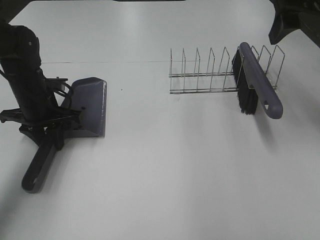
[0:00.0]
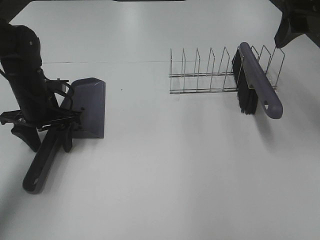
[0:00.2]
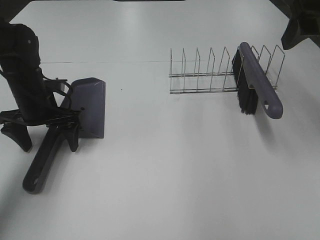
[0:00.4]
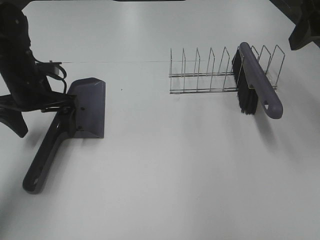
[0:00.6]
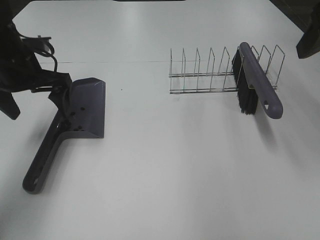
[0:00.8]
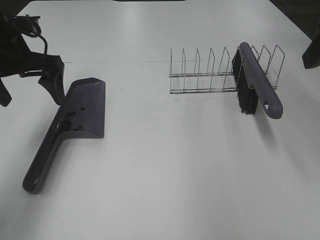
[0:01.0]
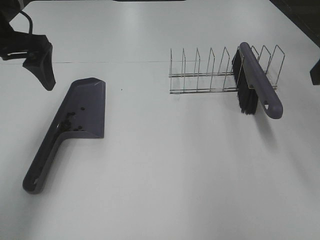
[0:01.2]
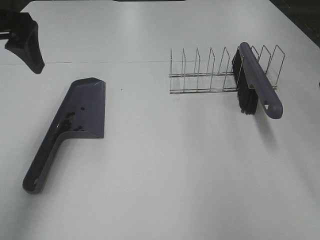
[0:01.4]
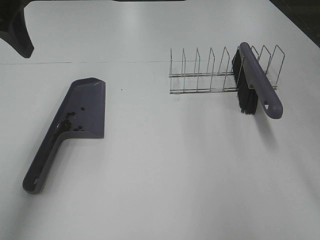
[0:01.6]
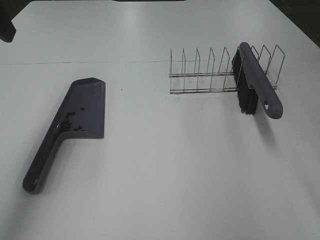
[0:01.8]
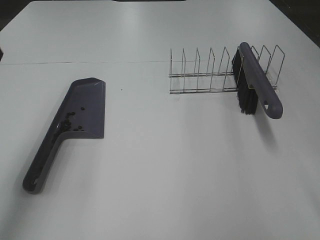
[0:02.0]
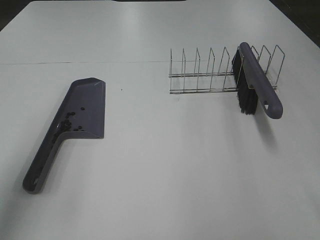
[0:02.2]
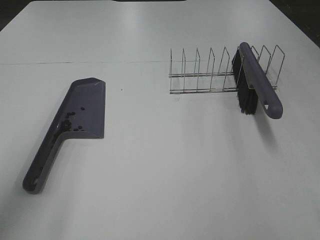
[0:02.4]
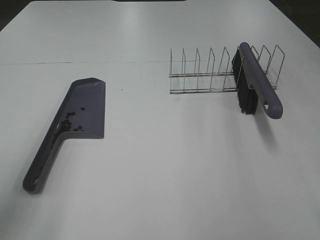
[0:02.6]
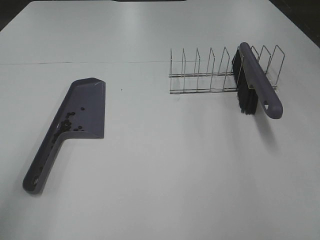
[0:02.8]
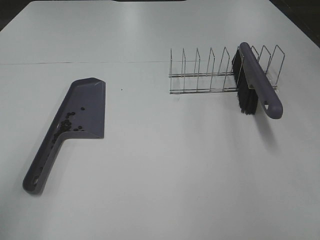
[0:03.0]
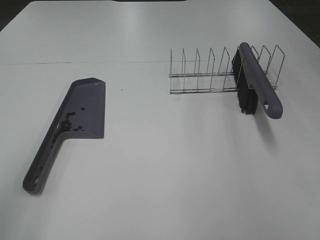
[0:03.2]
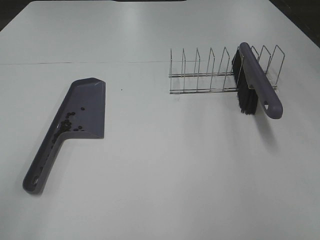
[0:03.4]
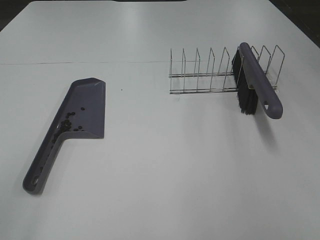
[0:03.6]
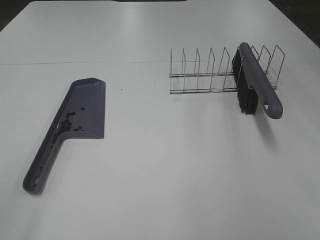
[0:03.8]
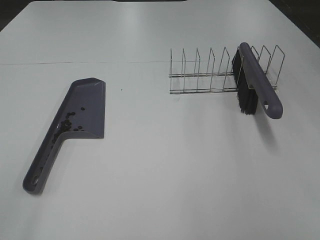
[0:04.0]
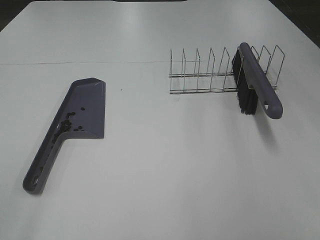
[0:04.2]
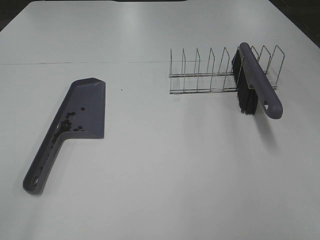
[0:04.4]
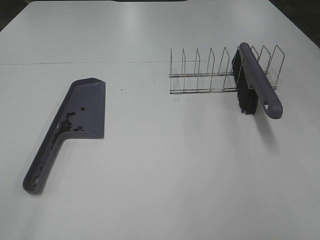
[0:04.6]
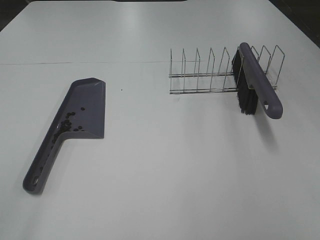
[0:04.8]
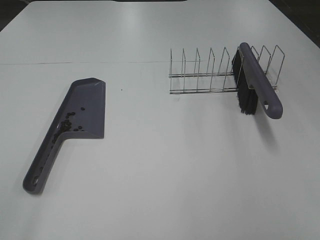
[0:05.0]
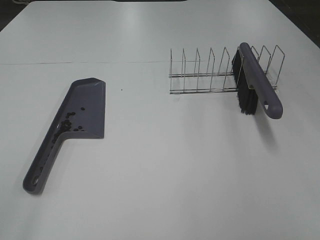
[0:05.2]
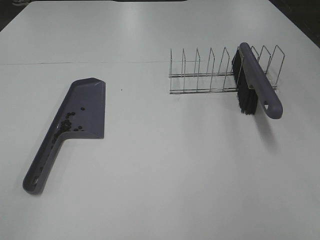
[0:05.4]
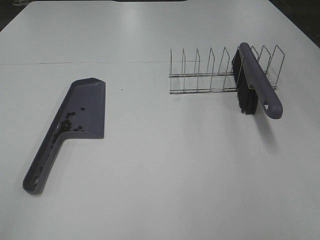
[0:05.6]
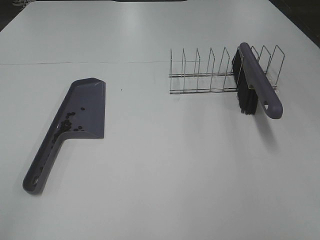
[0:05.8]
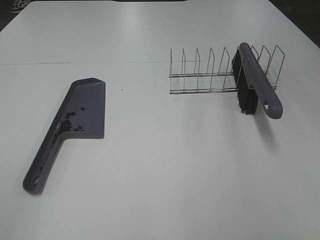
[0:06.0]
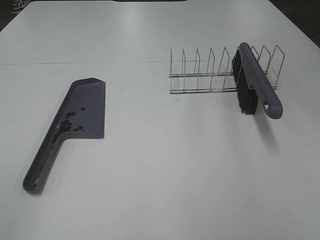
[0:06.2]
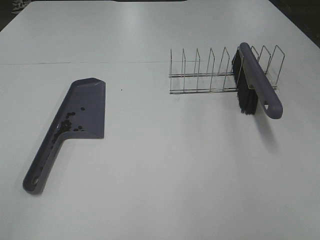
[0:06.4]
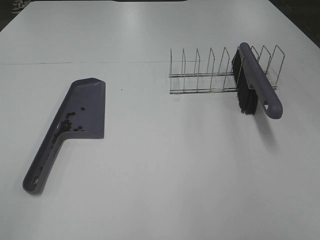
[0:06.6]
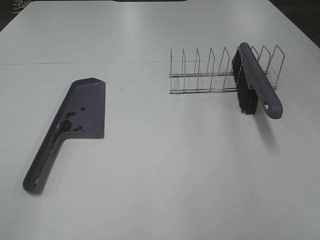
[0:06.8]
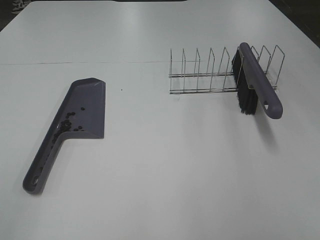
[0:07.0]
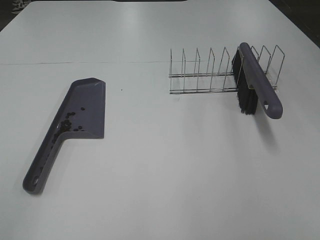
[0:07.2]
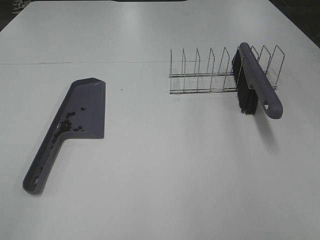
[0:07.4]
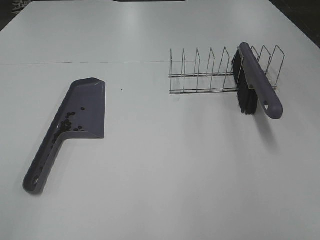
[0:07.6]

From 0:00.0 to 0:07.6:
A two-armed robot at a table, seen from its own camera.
Task of the whole recording: Sweep Coffee Bean.
From 0:00.0 to 0:01.6: The right gripper heads backward, covering approximately 15 cm; the left gripper shifts about 25 cm upward, and opens up.
From 0:01.6 to 0:03.0: The left gripper moves backward and downward, about 20 cm.

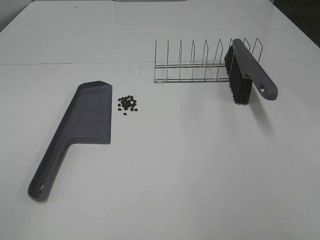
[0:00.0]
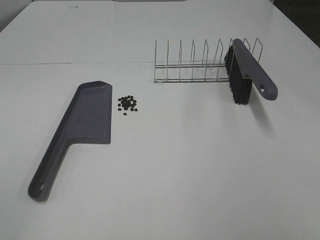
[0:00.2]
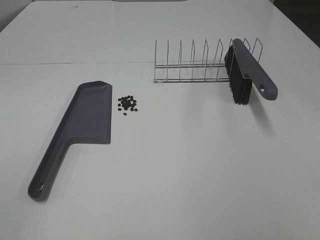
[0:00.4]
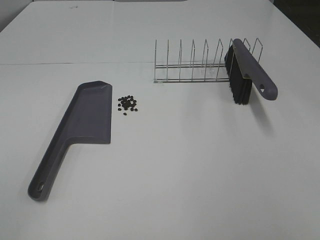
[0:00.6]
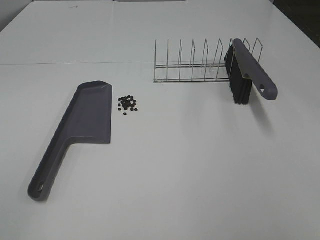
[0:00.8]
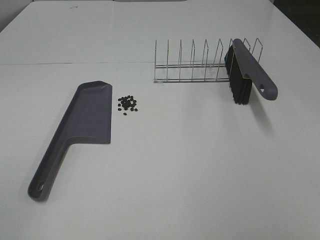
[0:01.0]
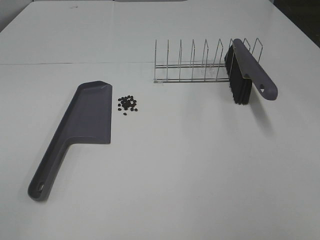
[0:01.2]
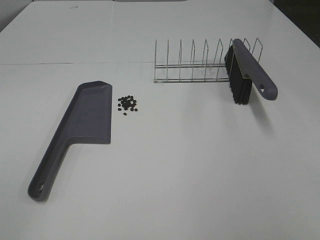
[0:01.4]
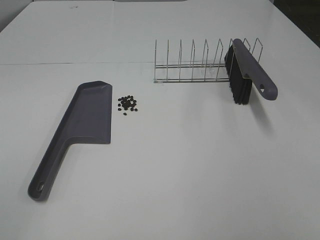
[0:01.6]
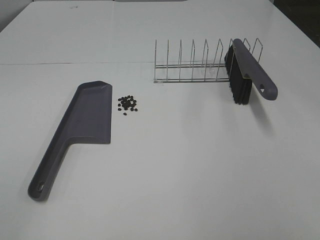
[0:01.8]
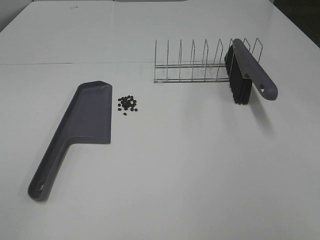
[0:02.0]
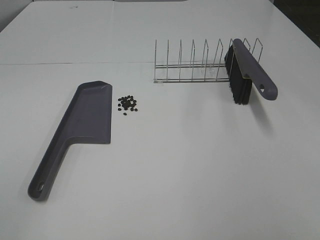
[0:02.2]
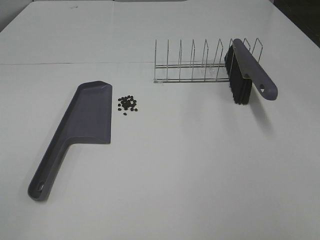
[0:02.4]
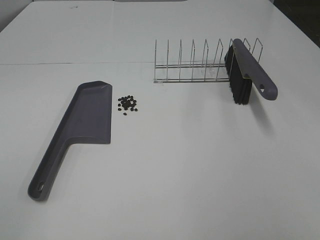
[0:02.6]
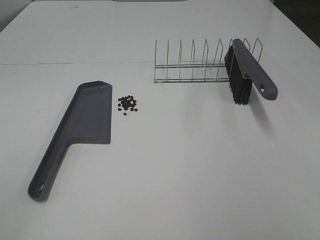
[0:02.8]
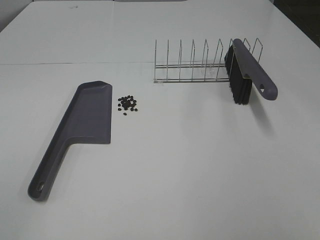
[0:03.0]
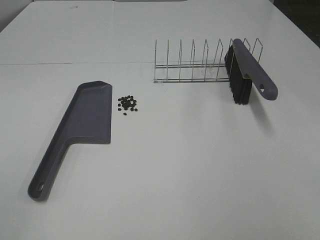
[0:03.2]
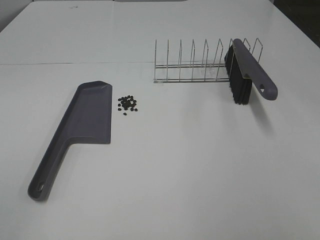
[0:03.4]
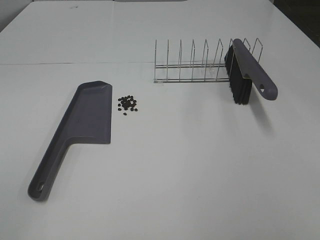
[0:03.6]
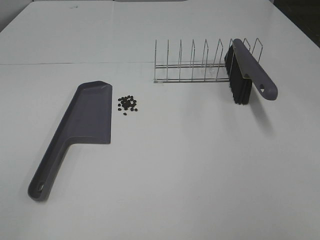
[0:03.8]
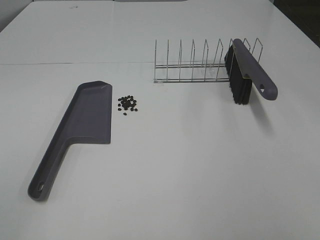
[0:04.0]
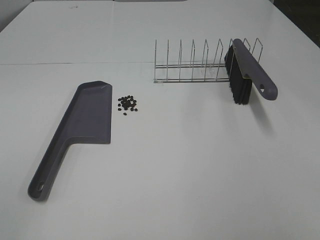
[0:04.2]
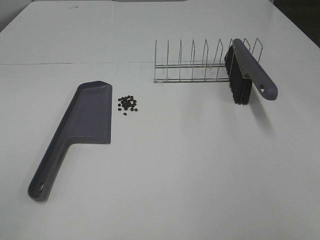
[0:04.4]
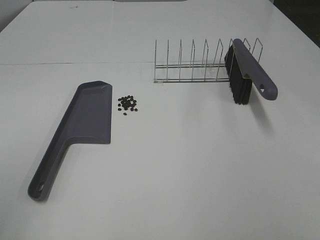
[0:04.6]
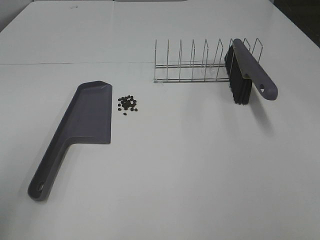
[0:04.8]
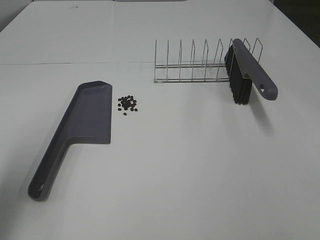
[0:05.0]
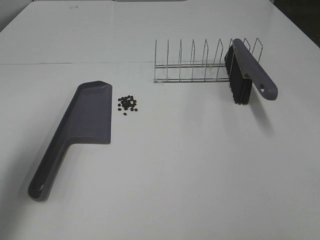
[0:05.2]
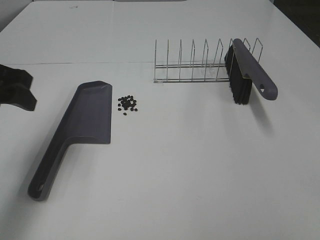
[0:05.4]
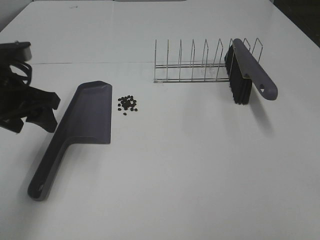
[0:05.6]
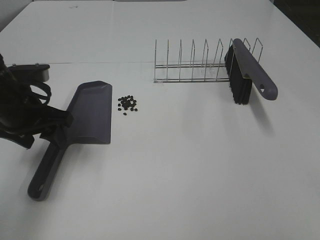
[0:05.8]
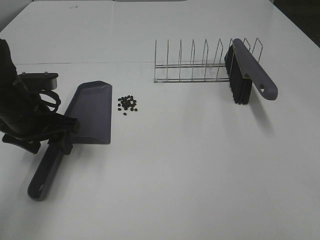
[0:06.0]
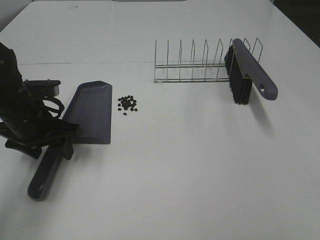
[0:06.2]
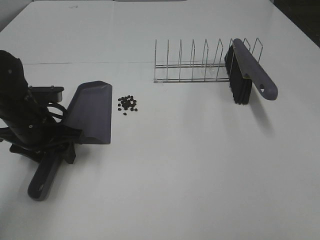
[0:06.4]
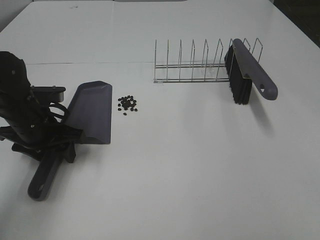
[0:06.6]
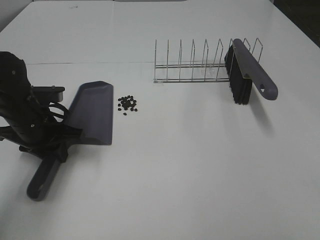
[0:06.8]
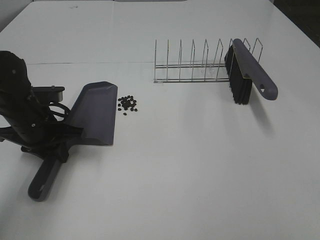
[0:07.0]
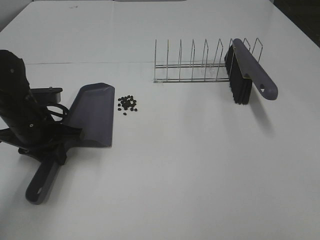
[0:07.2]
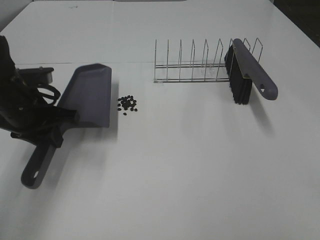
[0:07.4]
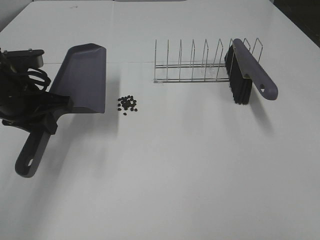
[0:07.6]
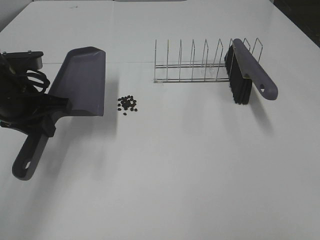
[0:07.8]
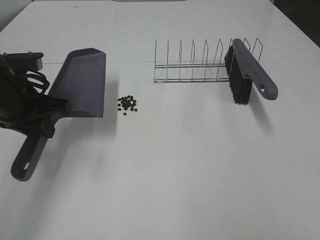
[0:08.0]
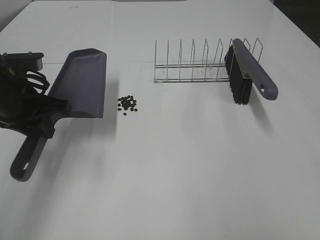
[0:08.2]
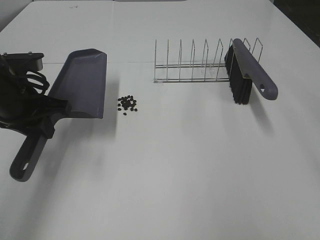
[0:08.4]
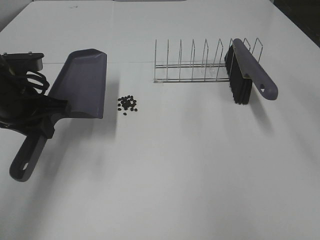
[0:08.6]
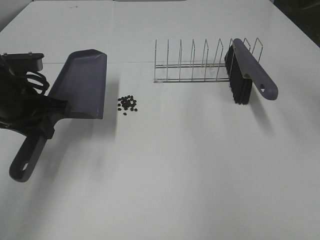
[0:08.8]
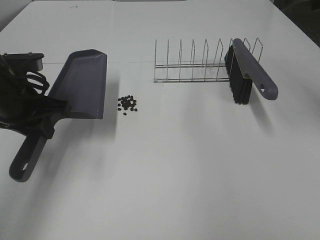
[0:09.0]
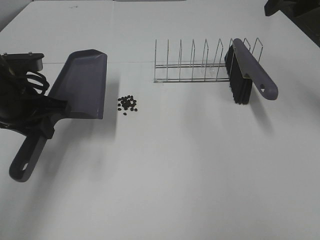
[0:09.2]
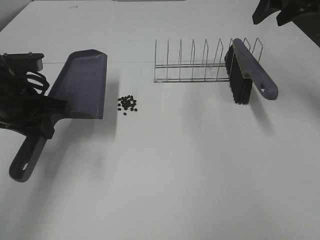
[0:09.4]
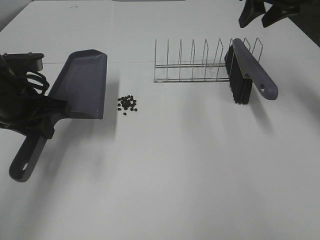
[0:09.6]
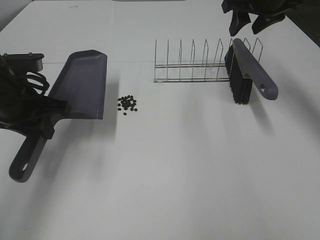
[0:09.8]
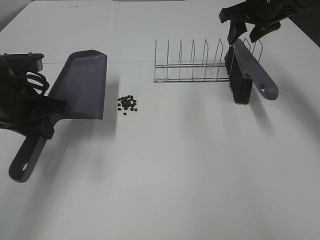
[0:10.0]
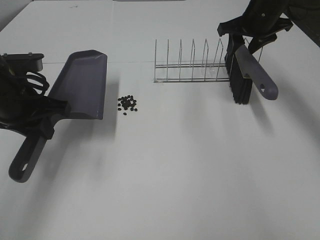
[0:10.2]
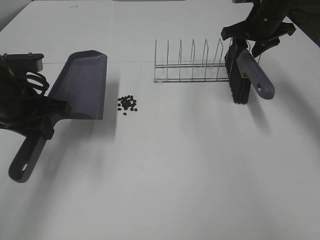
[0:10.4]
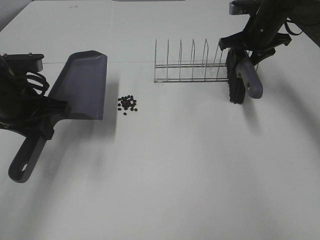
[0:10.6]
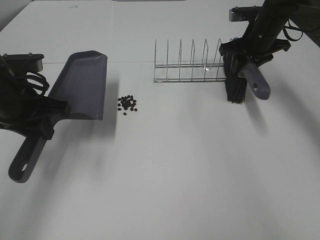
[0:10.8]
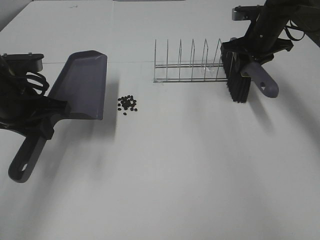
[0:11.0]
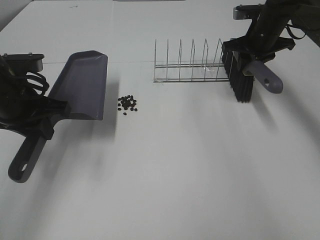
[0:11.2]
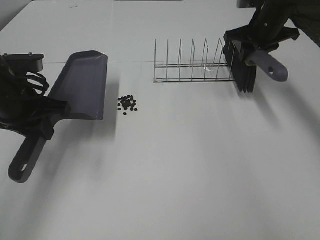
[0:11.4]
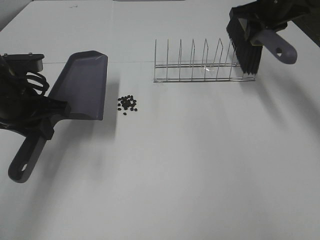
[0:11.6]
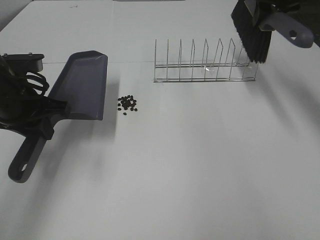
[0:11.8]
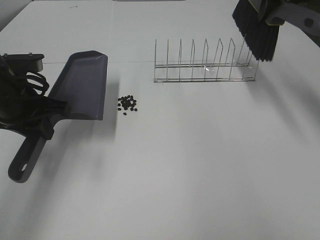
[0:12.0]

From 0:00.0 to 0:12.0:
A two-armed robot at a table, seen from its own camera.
Task of the whole recording: Sweep Coffee Bean.
Step, from 0:00.0 to 0:06.8: Left hand: grab the dustpan.
Step, from 0:07.6 to 0:10.8: Right hand:grab the broom.
From 0:00.0 to 0:03.0: Neither gripper changes place.
From 0:04.4 to 0:06.0: The left gripper moves forward and downward, about 35 cm.
From 0:06.0 to 0:07.6: The left gripper closes up.
From 0:09.0 to 0:10.4: The right gripper moves forward and downward, roughly 20 cm.
From 0:10.4 to 0:12.0: The right gripper shifts approximately 15 cm upward and backward, and closes up.

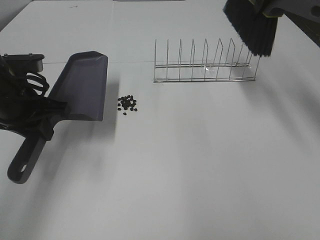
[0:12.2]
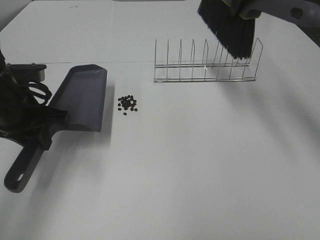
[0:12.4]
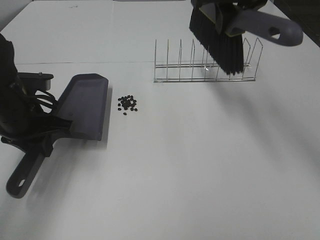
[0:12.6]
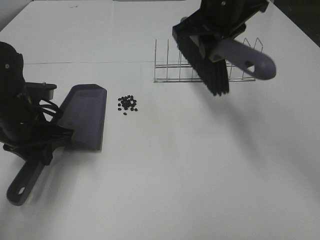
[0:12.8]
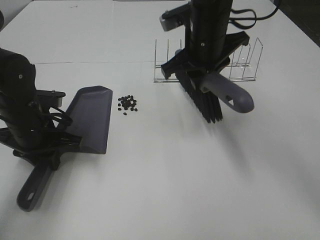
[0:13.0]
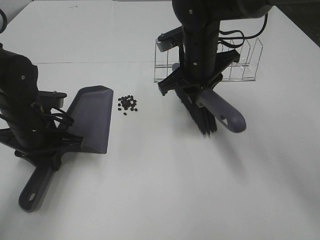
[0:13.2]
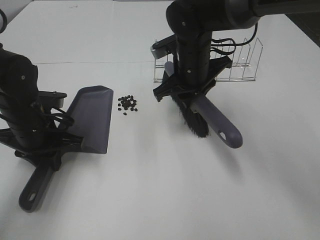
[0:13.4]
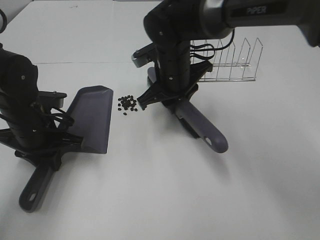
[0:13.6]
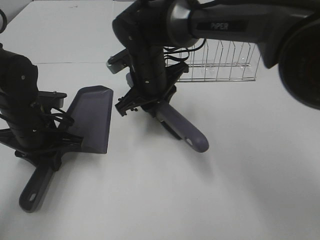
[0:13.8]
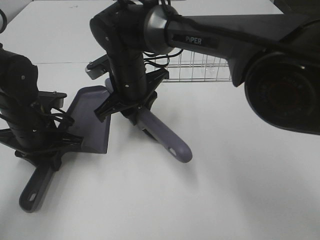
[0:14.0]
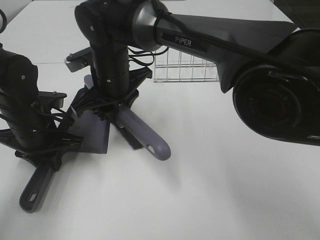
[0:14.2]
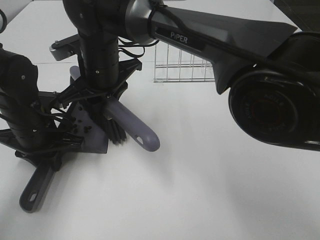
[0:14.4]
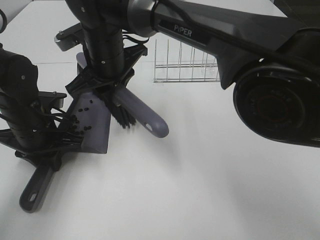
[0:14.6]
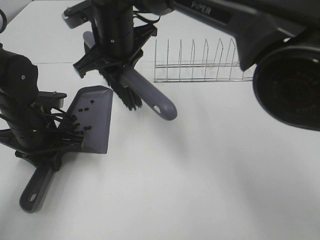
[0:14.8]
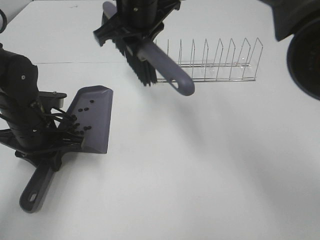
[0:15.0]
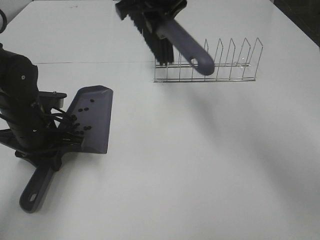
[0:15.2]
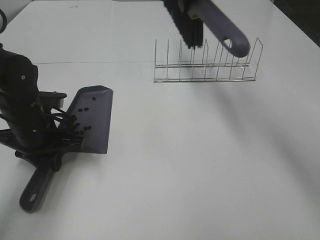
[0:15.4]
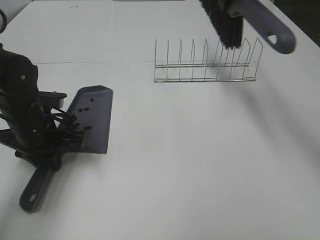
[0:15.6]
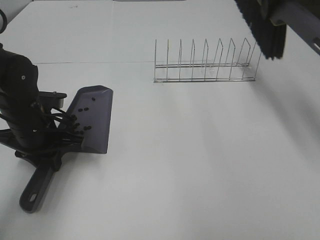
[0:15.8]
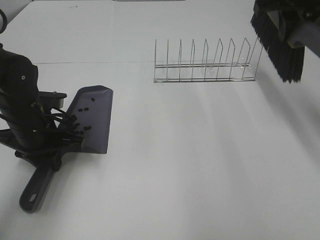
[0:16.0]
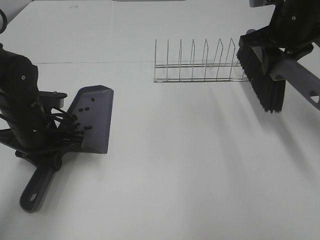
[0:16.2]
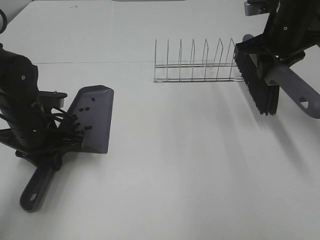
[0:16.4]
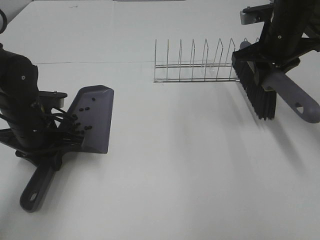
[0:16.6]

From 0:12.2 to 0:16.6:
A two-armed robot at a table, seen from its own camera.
Task of the whole recording: Sweep Coffee Bean.
Step, from 0:12.2 to 0:14.8: Right hand:sweep the coffee beans into the dustpan.
From 0:12.2 to 0:13.6: The left gripper moves downward, approximately 5 cm; the right gripper travels to the left and downward by about 25 cm.
From 0:13.6 to 0:15.2: The right gripper is displaced upward by some 15 cm.
From 0:15.2 to 0:16.6: The right gripper goes some 20 cm to the right and downward.
